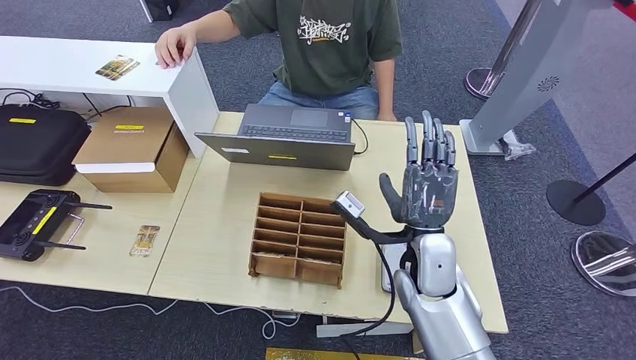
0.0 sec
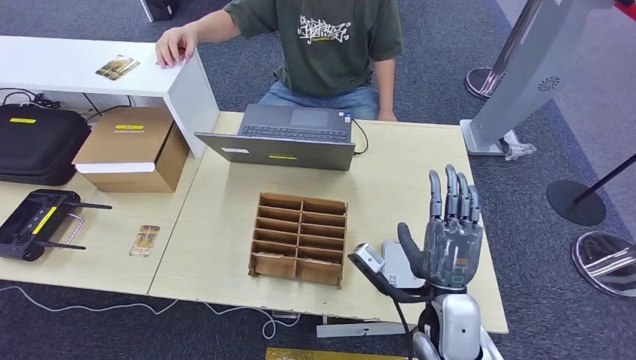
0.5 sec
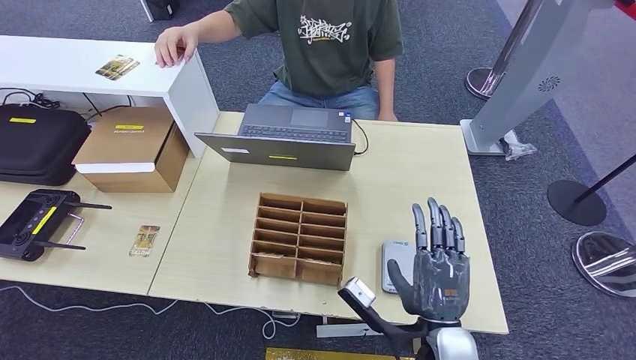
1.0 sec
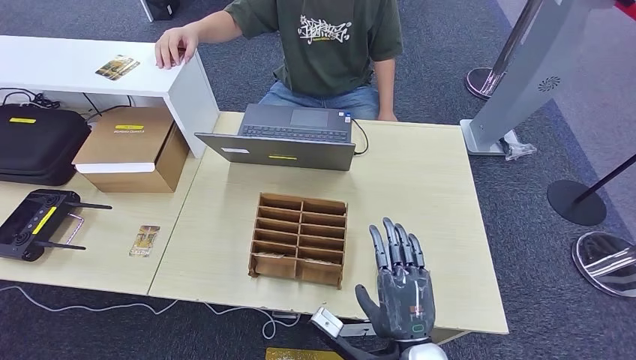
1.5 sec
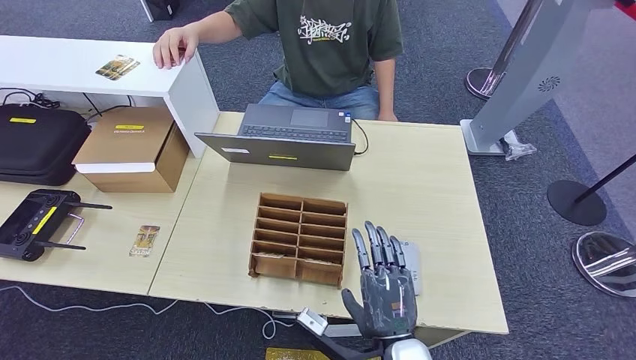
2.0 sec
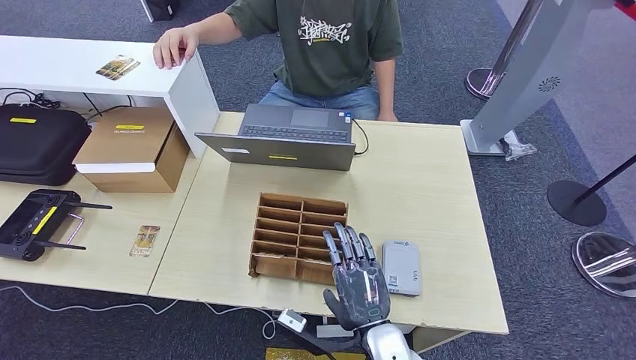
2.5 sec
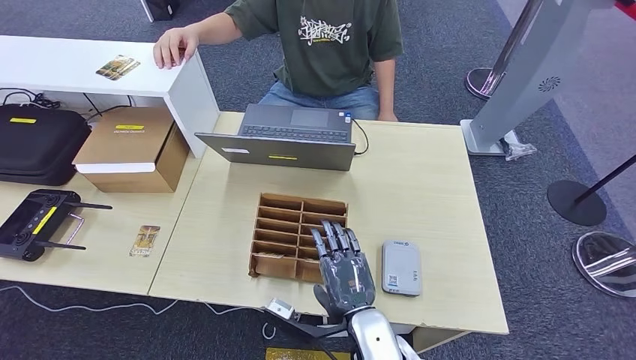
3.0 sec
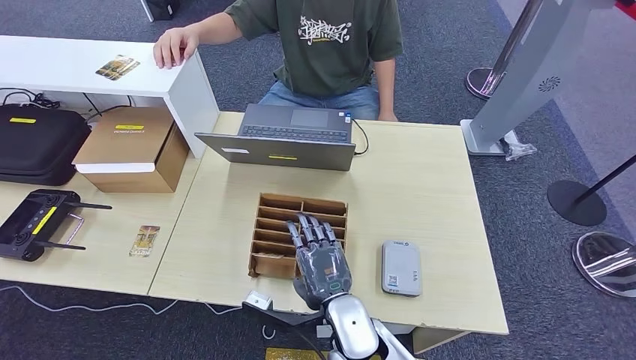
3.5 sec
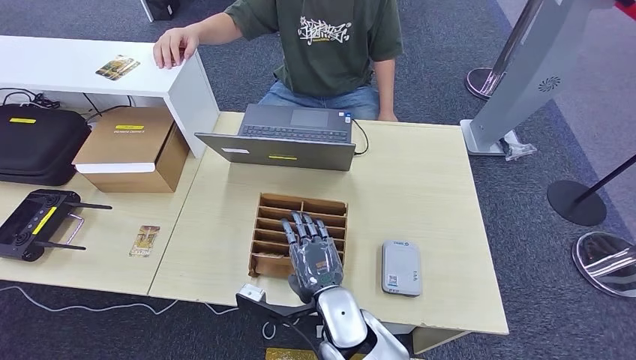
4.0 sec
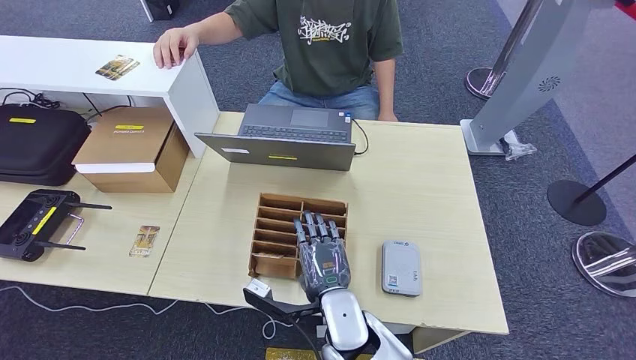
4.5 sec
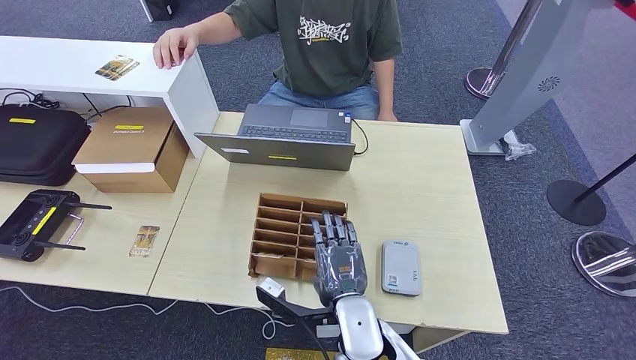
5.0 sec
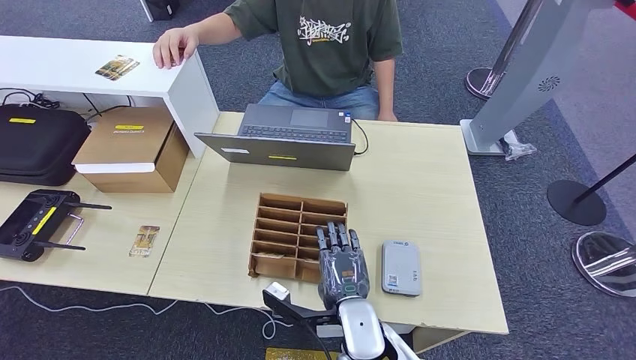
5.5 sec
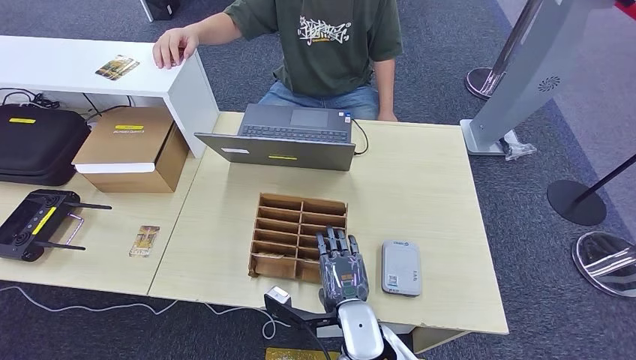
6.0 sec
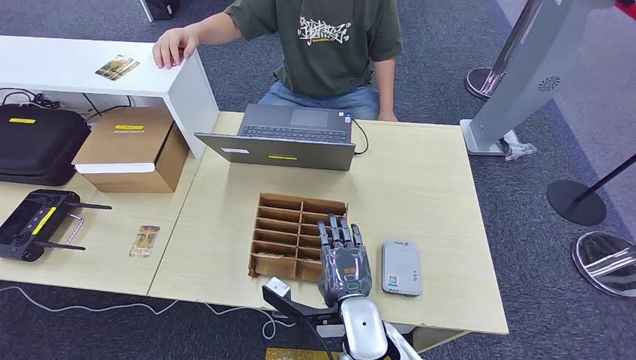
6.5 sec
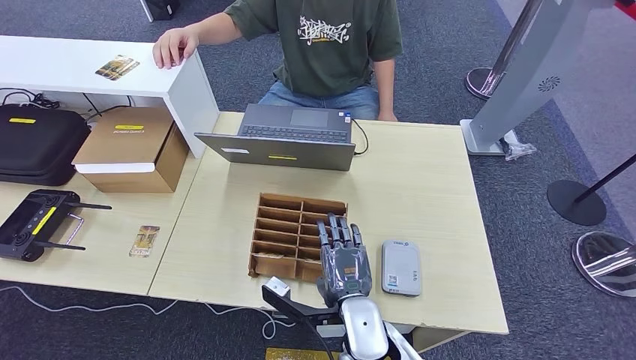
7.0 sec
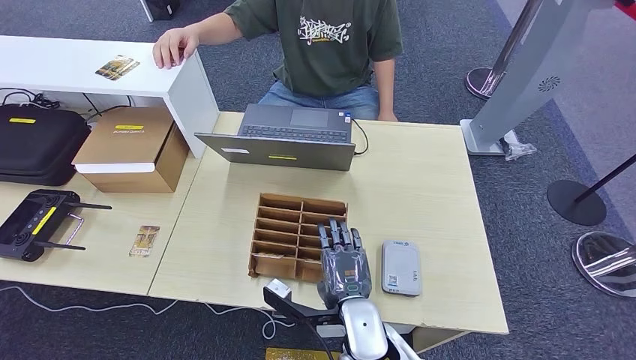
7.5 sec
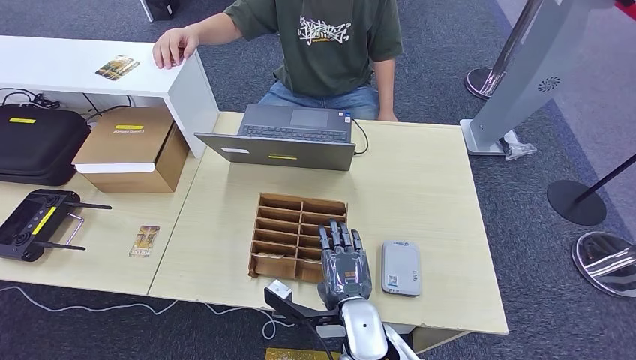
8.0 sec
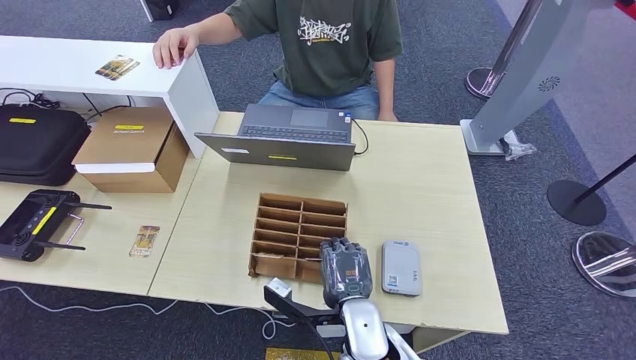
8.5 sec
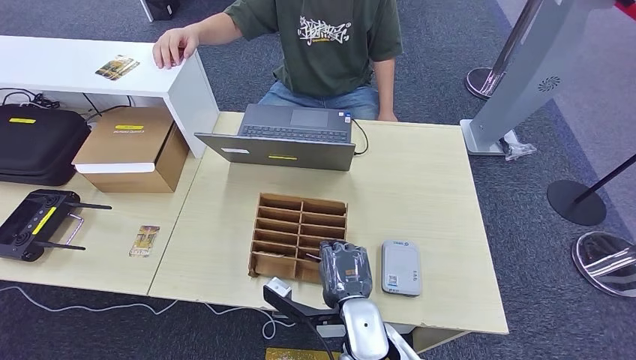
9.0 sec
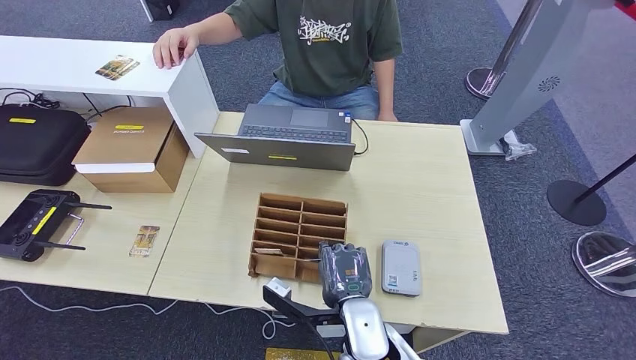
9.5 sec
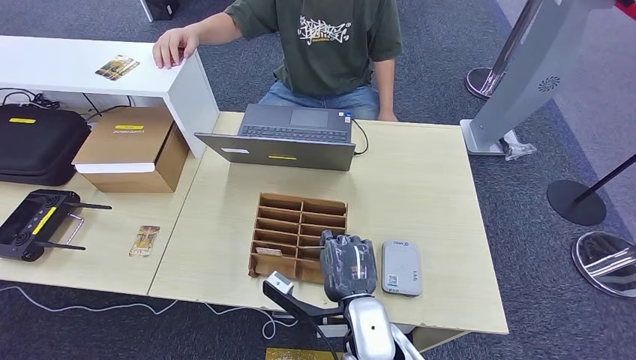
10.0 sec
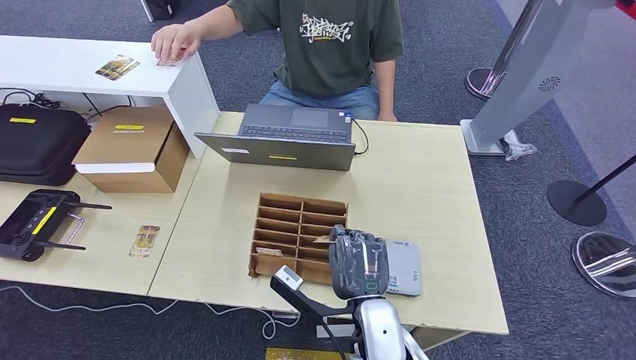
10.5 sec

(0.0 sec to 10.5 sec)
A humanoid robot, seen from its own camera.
0.0 sec - 2.0 sec: The right hand shifts some 15 cm backward.
2.0 sec - 4.0 sec: The right hand shifts approximately 10 cm to the left and forward.
4.0 sec - 6.5 sec: The hands stay close to where they were, moving slightly.
6.5 sec - 8.5 sec: Neither hand changes place.
8.5 sec - 10.5 sec: The hands move only a little.

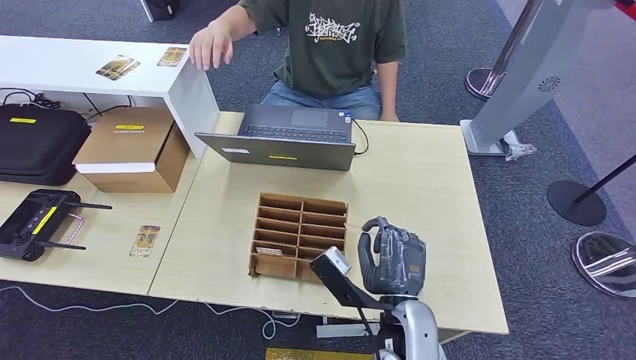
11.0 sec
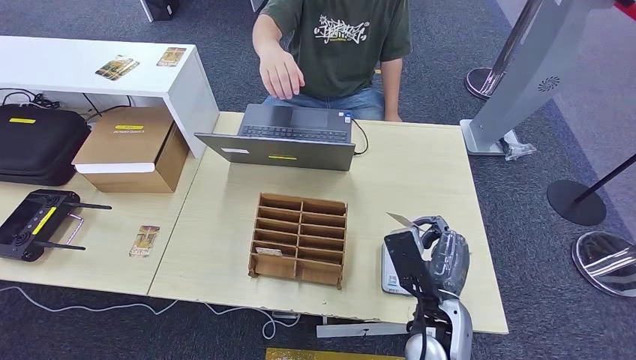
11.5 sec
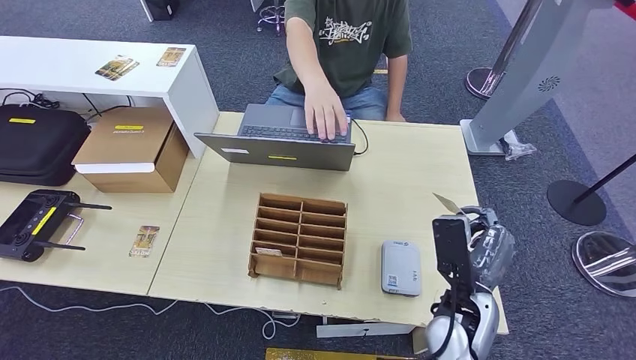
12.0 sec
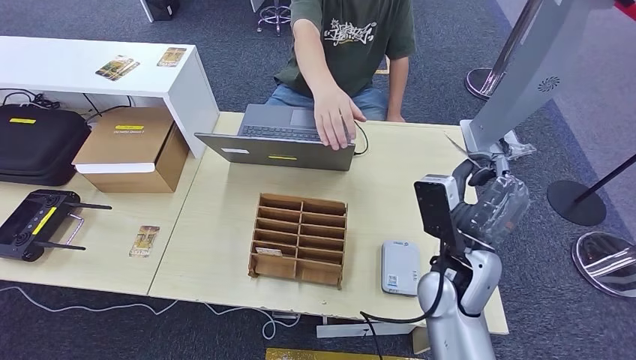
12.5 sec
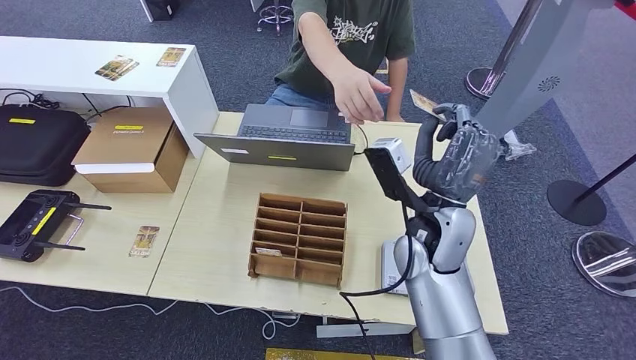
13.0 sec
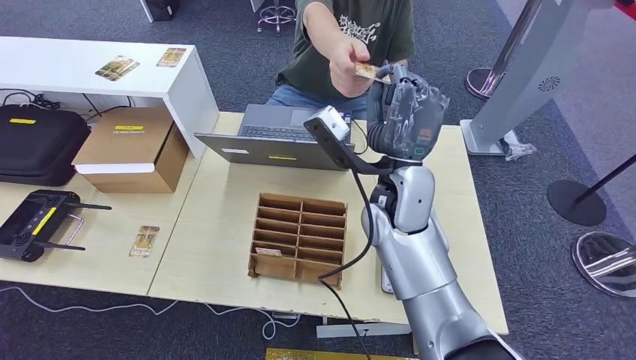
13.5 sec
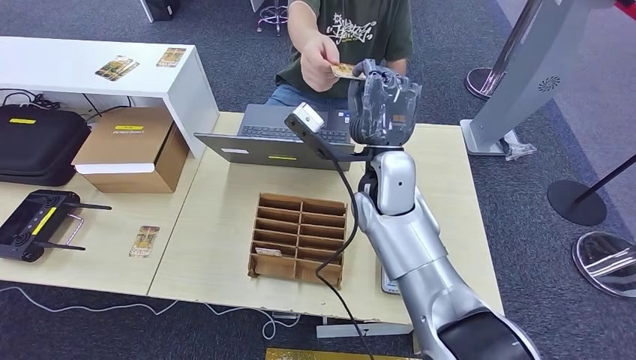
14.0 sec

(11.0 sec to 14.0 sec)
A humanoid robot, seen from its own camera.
Step, 11.0 sec - 13.5 sec: Hand the room key to the person.
11.0 sec - 12.5 sec: The right hand is displaced to the right, forward and upward by some 10 cm.
12.5 sec - 14.0 sec: The right hand travels forward, to the left and upward by approximately 15 cm.
